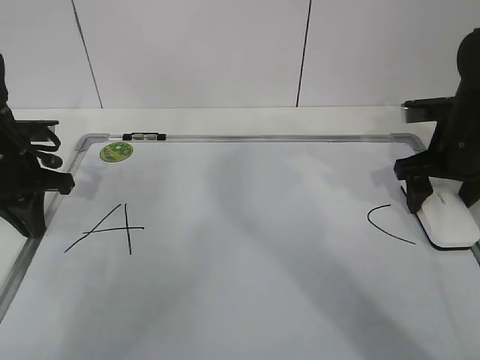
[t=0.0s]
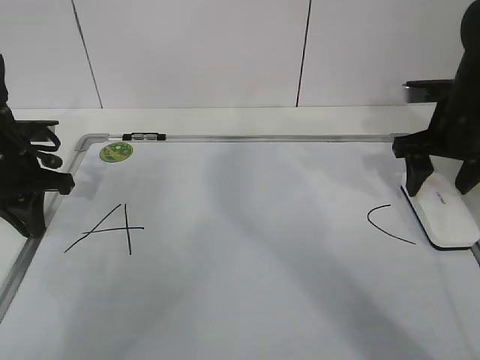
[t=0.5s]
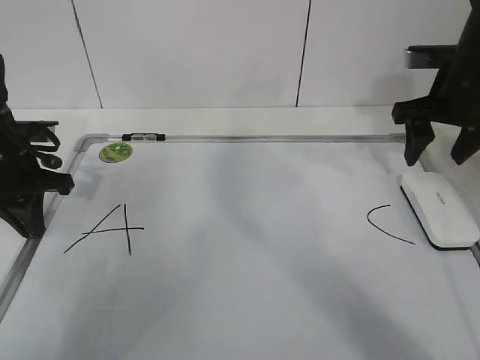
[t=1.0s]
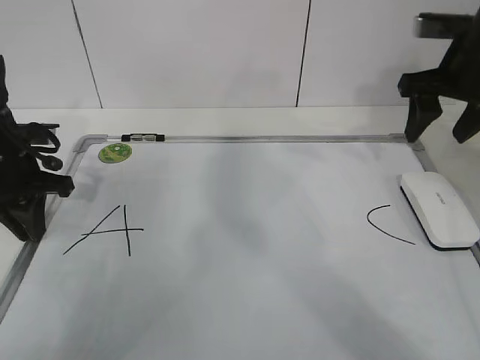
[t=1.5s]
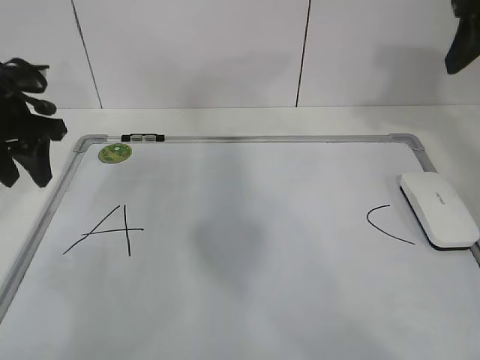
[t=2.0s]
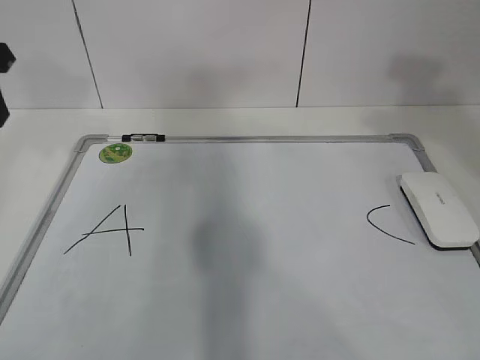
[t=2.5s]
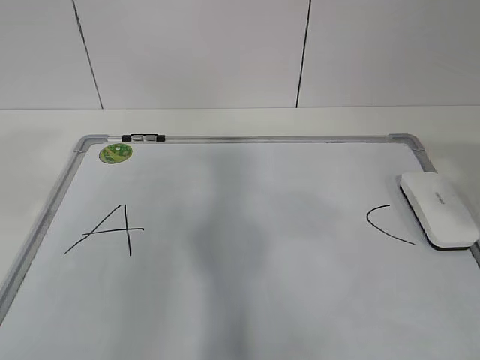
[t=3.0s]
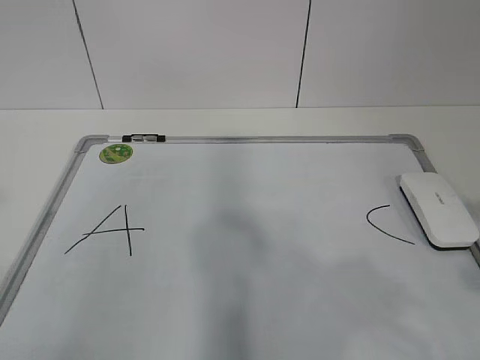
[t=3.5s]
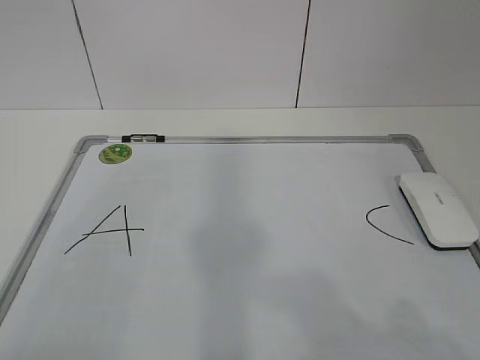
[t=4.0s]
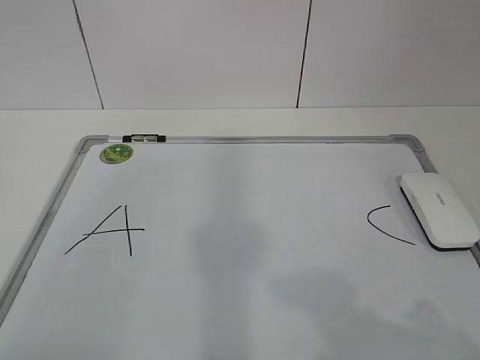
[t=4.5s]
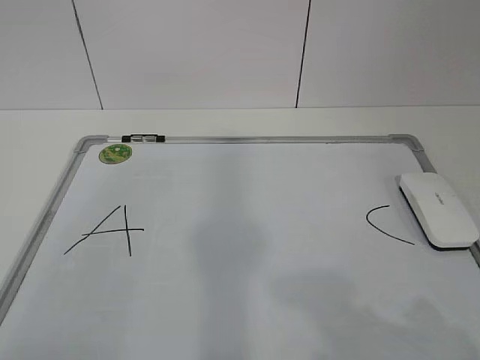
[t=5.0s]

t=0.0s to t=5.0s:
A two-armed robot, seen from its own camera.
Task of the whole recording: pick up the eraser on the blackboard and erase the letter "B".
t=0.0s to t=2.5s: The left gripper shifts approximately 15 cm upward, and opens its fingers. Meanwhile the right gripper shifts about 30 cm upward and backward, and closes up.
t=2.5s to t=5.0s: The right gripper heads backward and downward, covering roughly 30 cm. The left gripper is displaced backward by about 35 cm.

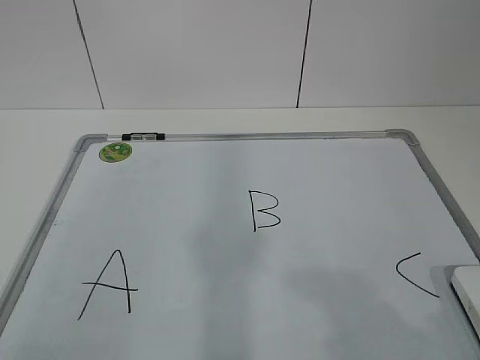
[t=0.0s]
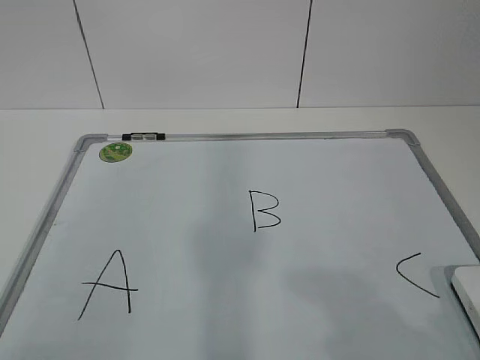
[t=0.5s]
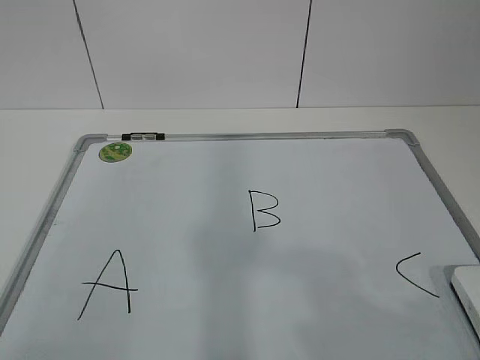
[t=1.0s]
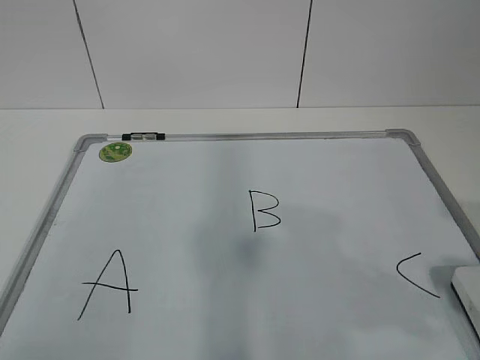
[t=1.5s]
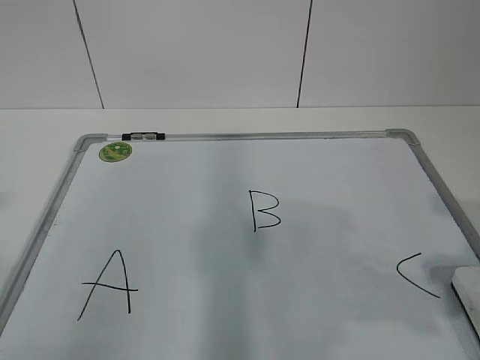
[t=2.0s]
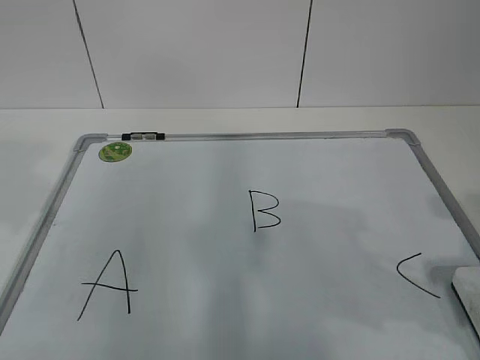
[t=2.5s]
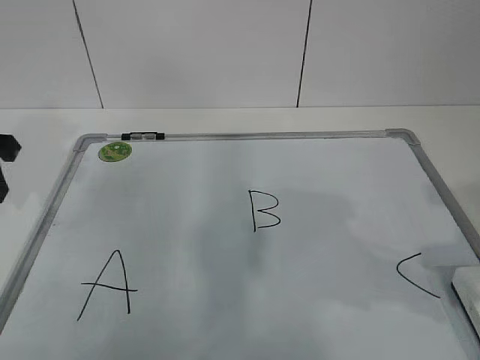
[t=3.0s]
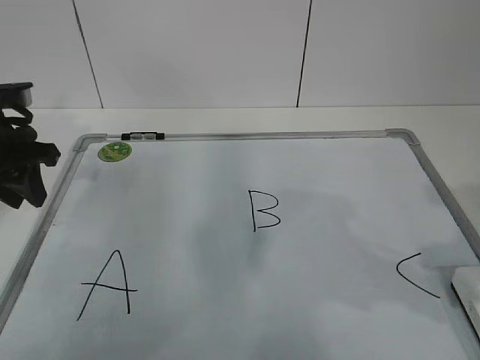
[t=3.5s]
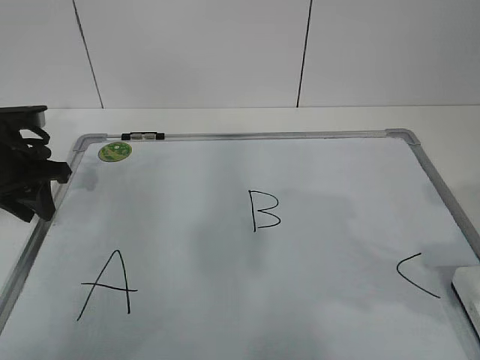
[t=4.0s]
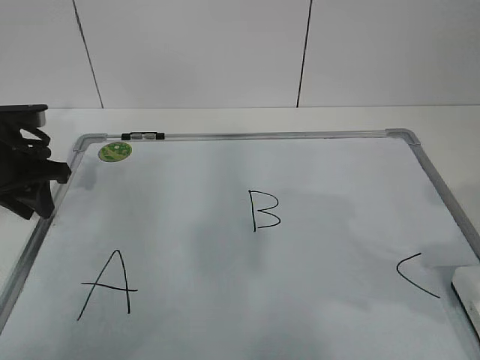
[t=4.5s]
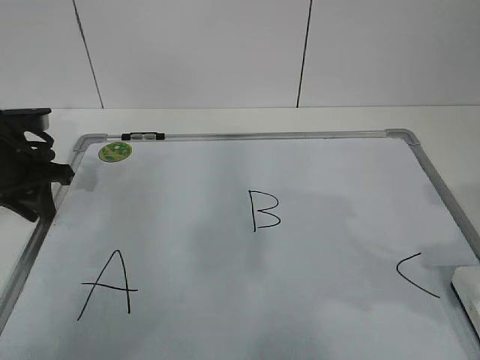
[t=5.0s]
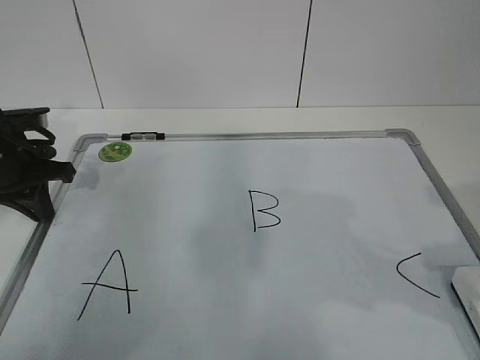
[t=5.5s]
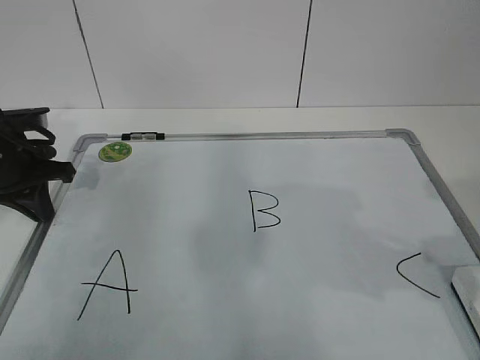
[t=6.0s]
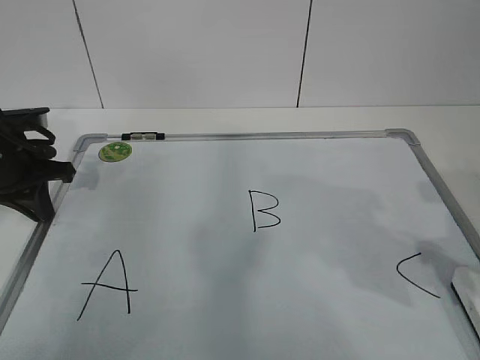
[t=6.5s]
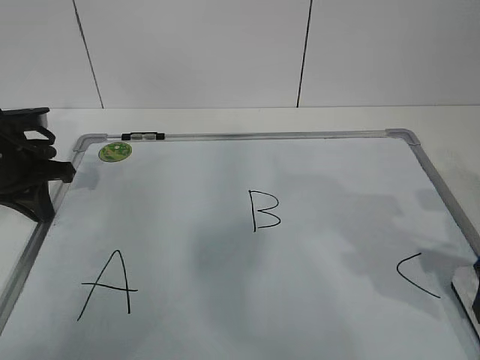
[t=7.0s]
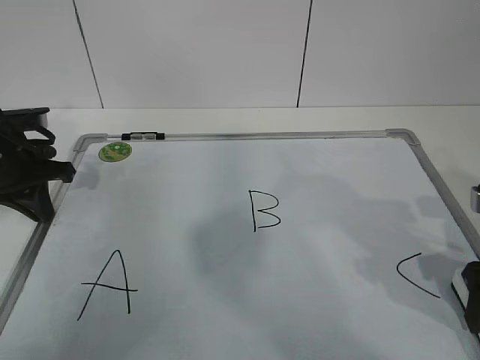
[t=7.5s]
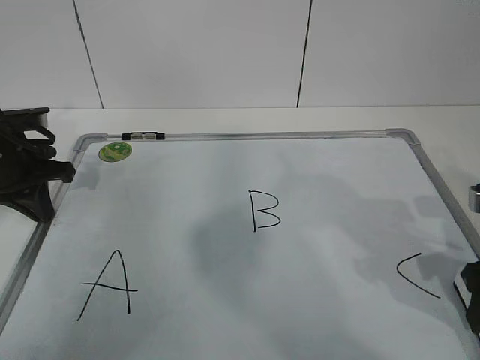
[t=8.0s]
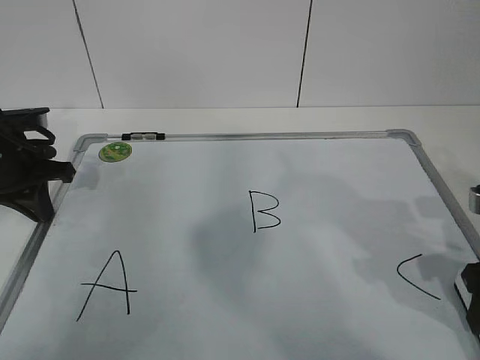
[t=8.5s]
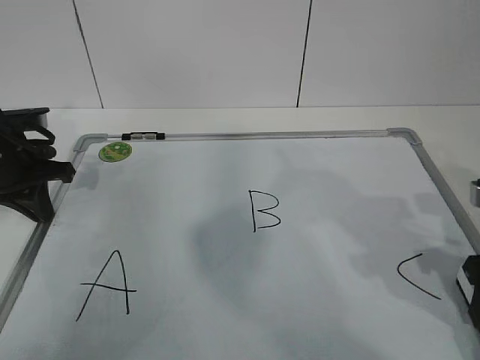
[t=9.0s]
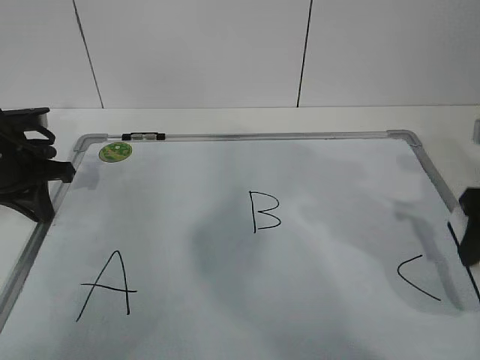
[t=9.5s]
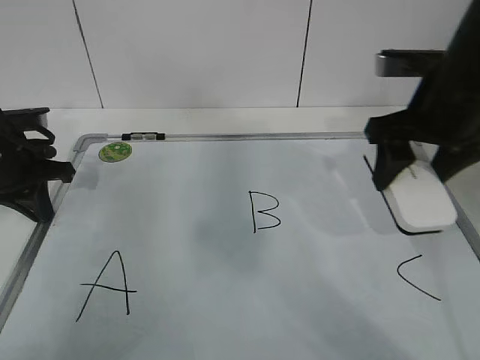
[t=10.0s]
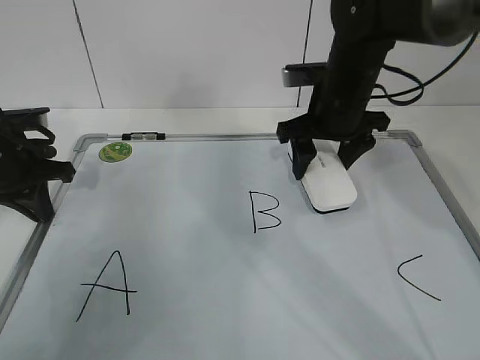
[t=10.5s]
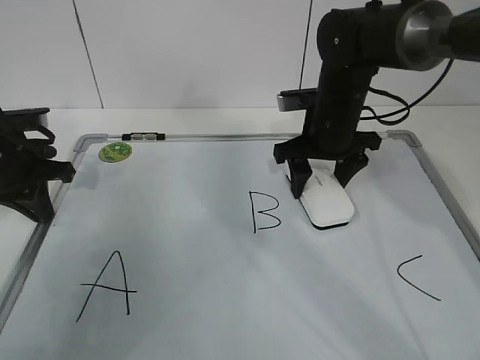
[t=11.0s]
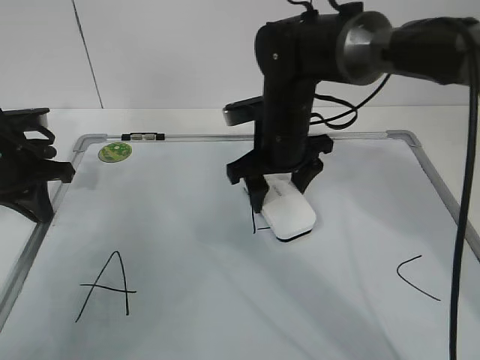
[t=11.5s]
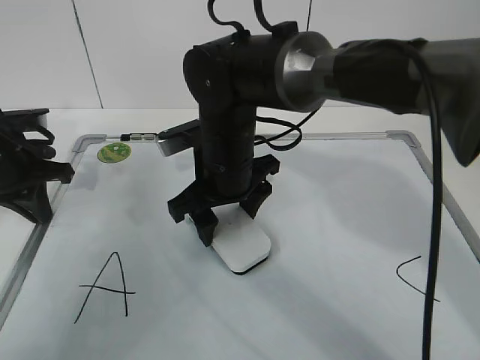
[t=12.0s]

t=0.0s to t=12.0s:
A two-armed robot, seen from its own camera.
Task of the whole recording: pick up the eraser on the blackboard and erase the letter "B".
Step, t=0.0s to t=4.0s: Hold the drawing board steady with your left hand.
Step, t=7.0s to t=11.5s: Erase the letter B with your right hand.
t=2.0s to t=4.0s: The left gripper goes approximately 35 cm forward and downward.
t=4.0s to t=6.0s: The left gripper closes its fingers.
t=6.0s to t=8.0s: The right gripper shifts approximately 10 cm downward and forward, and closes up.
t=8.0s to t=10.0s: The right gripper heads forward, upward and to the left, covering approximately 15 cm.
t=10.0s to t=12.0s: The right gripper travels to the left and downward by approximately 25 cm.

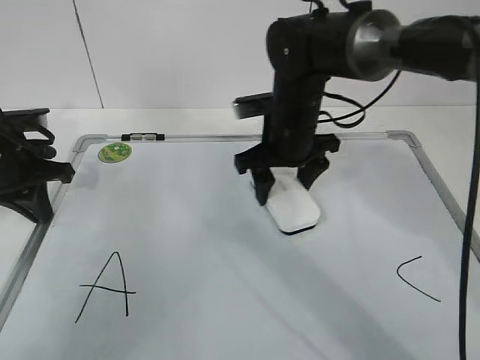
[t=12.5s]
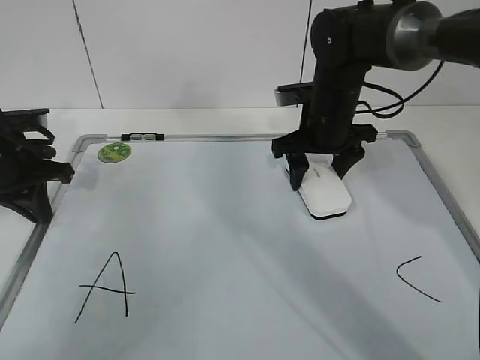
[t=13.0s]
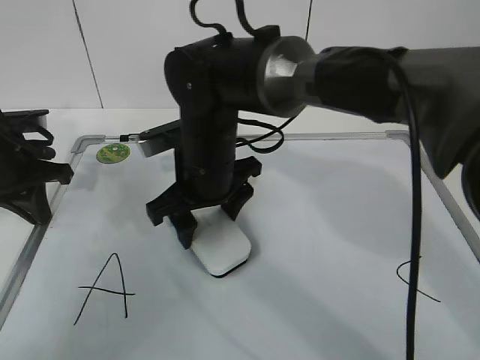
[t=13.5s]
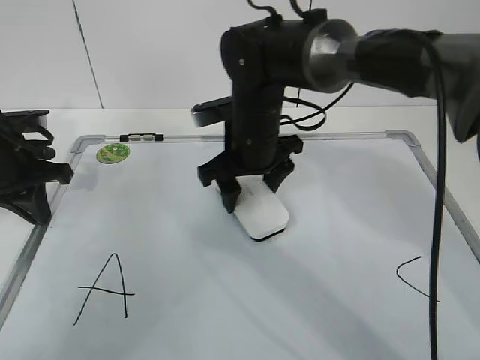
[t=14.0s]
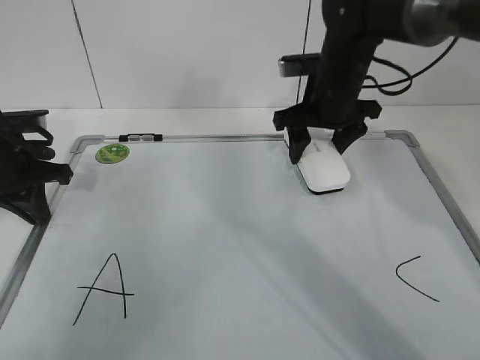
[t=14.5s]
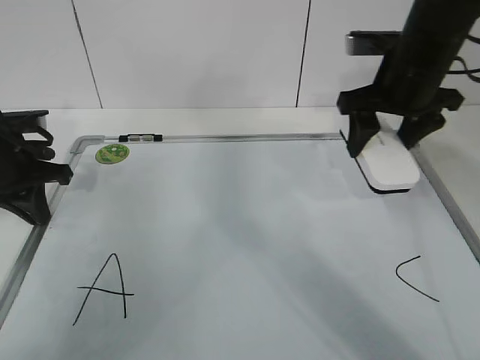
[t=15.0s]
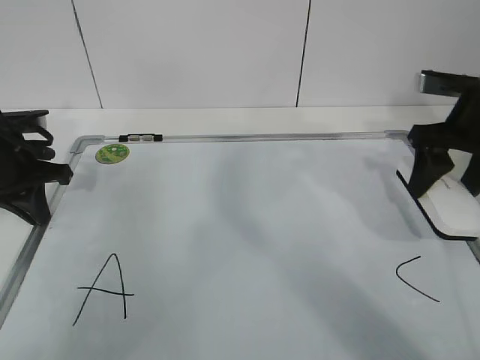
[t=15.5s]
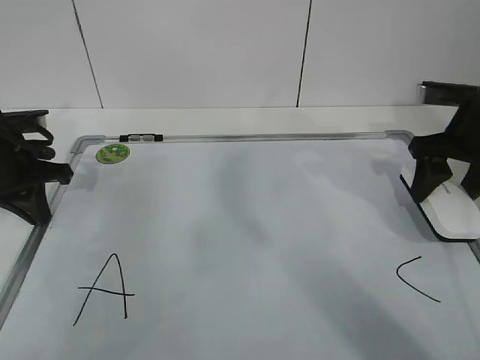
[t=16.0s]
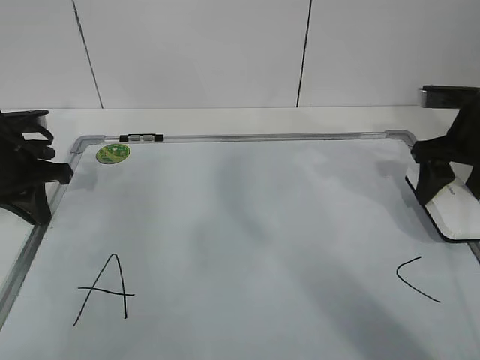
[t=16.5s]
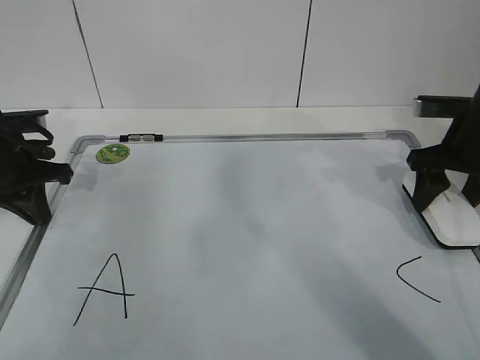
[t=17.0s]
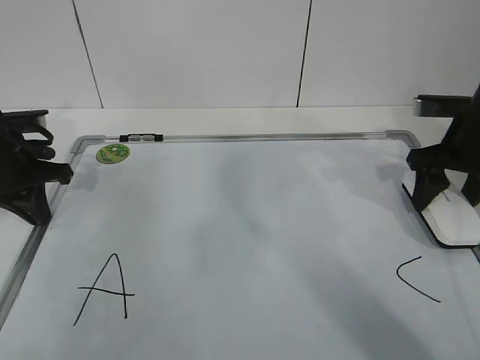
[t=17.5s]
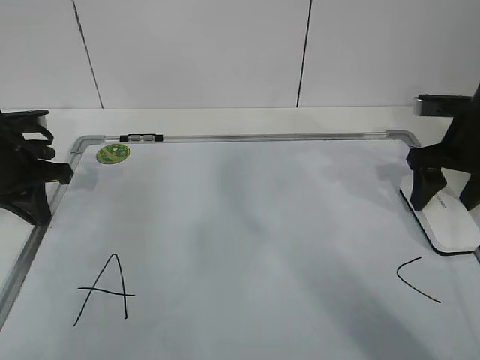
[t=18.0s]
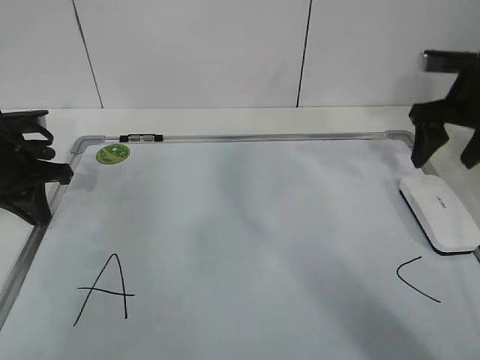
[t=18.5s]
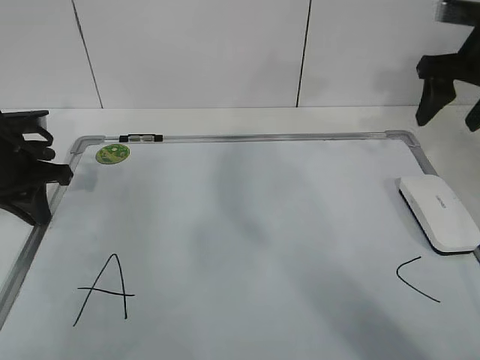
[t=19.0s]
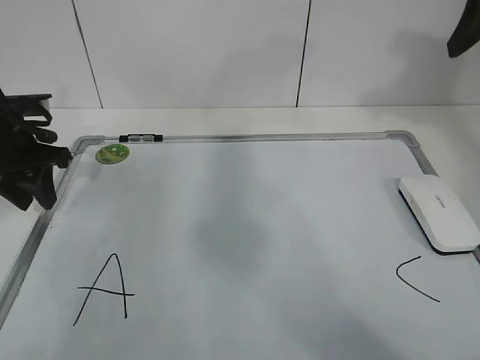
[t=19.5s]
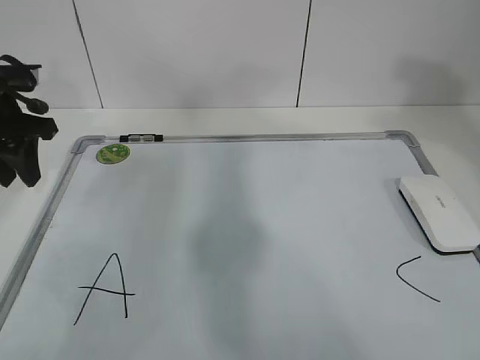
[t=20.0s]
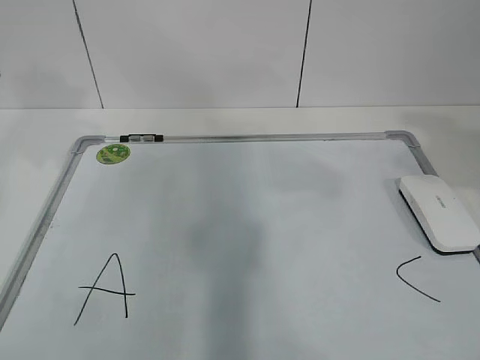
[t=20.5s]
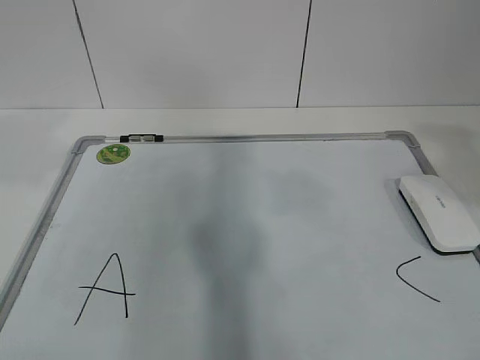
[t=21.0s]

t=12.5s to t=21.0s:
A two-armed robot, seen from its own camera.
Task of the whole recording: pick up the eraser on the blackboard and erase the letter "B".
Step, t=12.5s to t=14.5s: Put down the eraser with your right hand.
t=12.5s to t=14.5s: The right gripper goes left and right, approximately 15 cm each way, reversing 2 times.
t=14.5s to t=16.5s: The right gripper is displaced to the right and backward by roughly 20 cm.
t=16.5s to t=19.0s: The right gripper shifts approximately 10 cm upward, and opens up.
t=19.0s to t=21.0s: The left gripper goes about 25 cm upward and backward, and opens up. The right gripper goes roughly 30 cm backward and upward.
